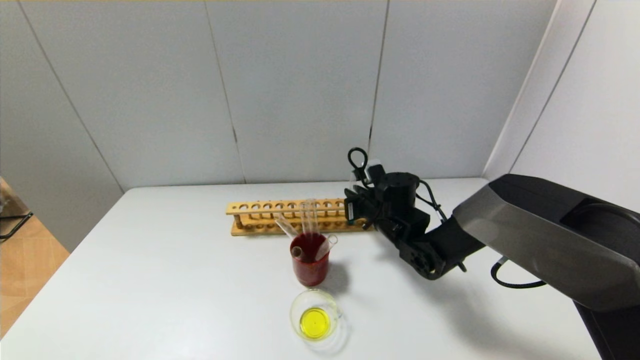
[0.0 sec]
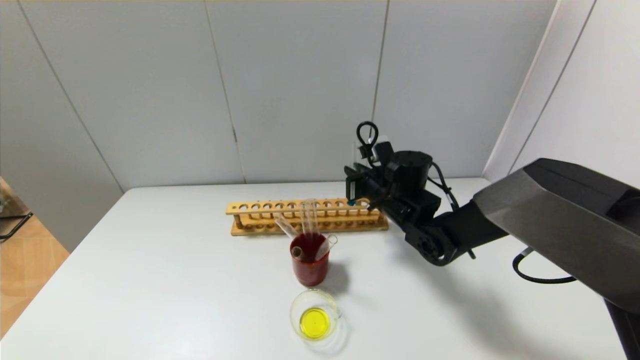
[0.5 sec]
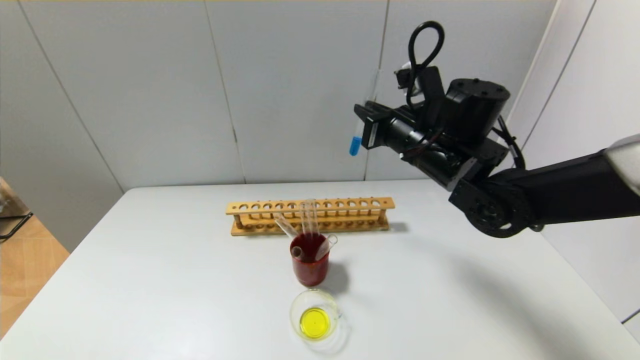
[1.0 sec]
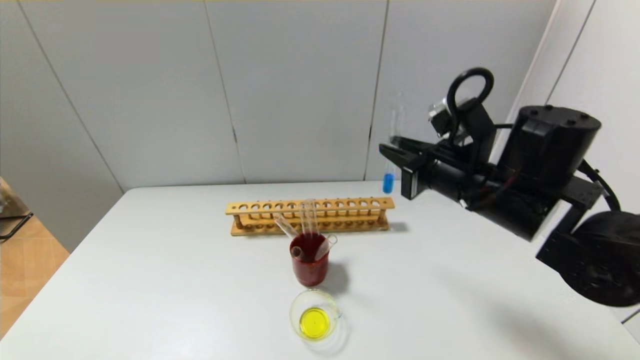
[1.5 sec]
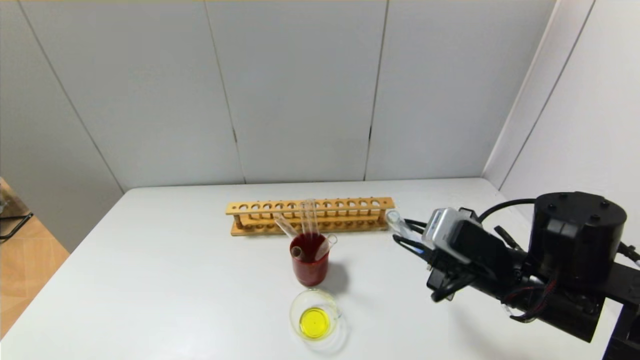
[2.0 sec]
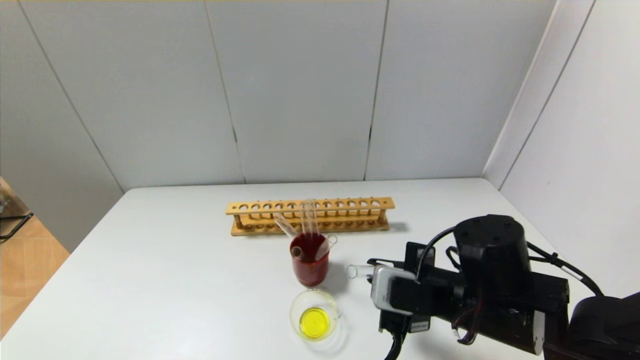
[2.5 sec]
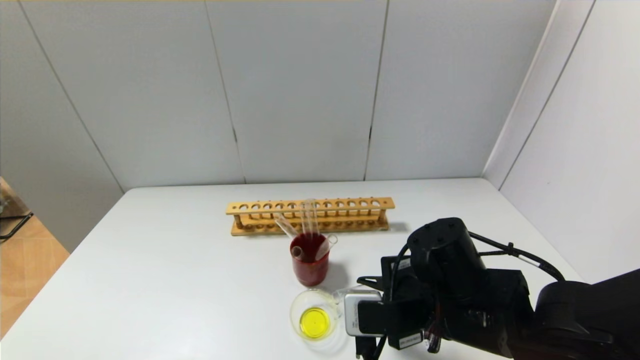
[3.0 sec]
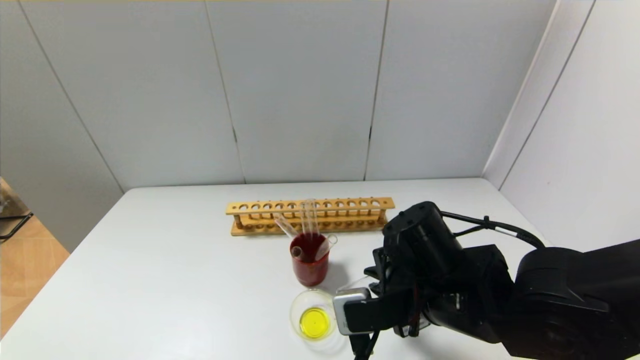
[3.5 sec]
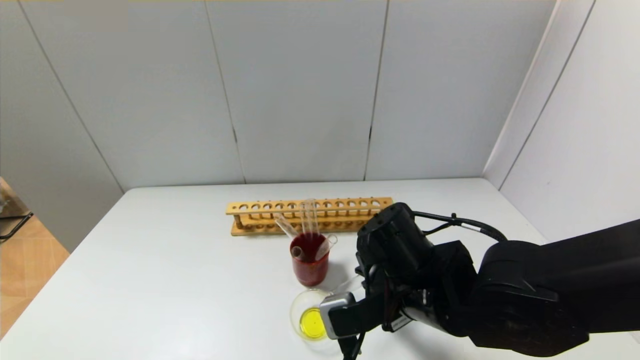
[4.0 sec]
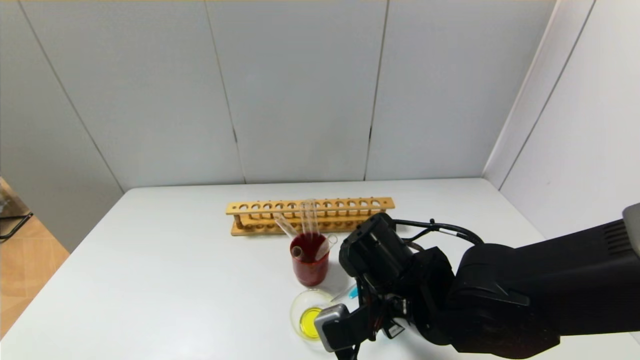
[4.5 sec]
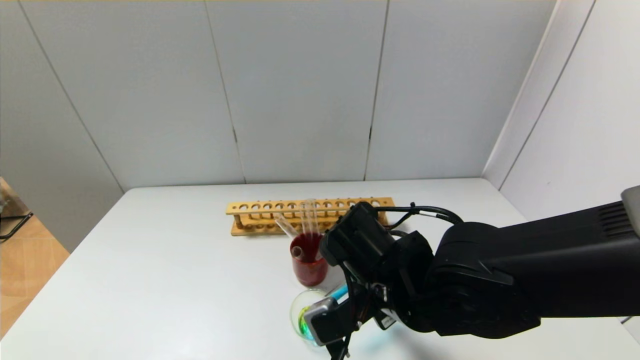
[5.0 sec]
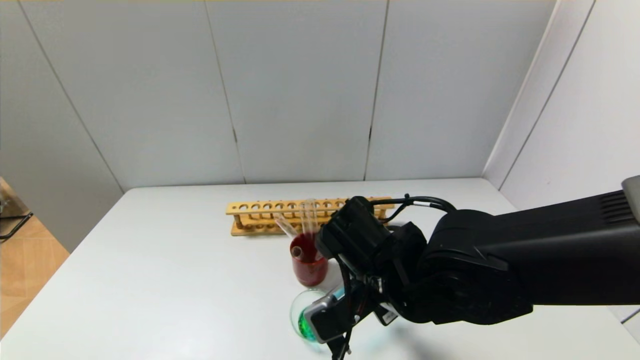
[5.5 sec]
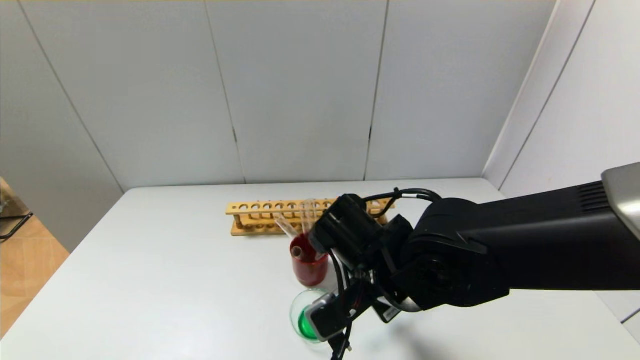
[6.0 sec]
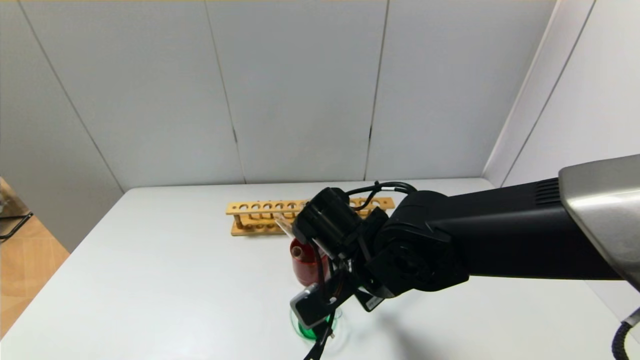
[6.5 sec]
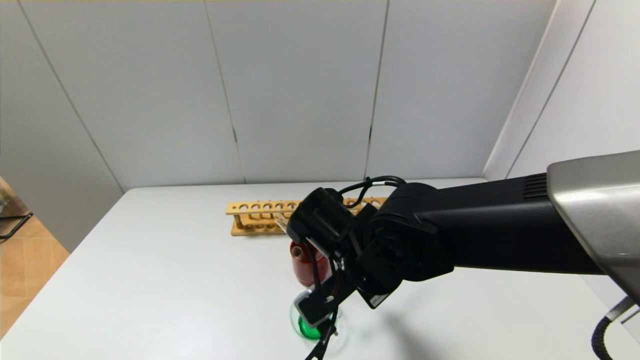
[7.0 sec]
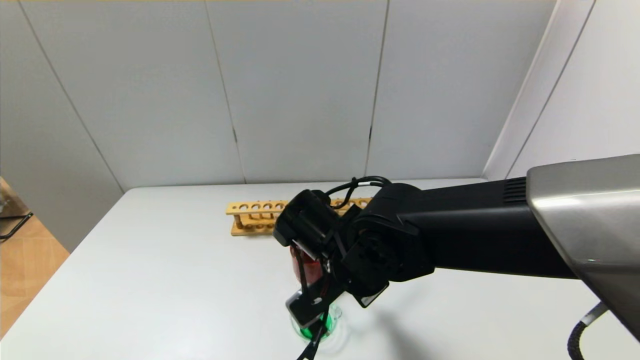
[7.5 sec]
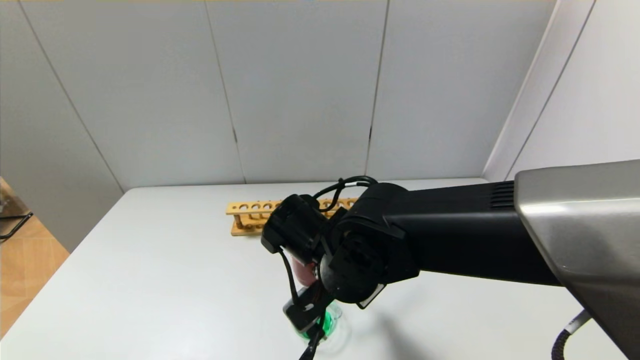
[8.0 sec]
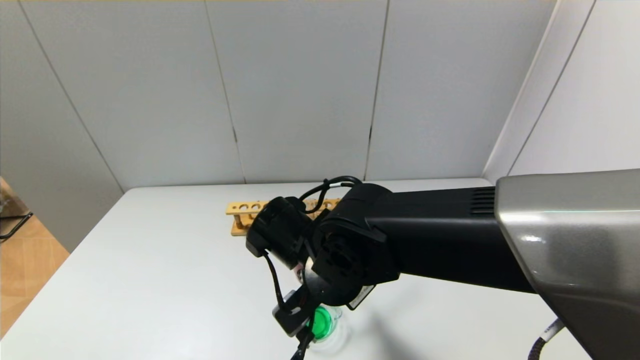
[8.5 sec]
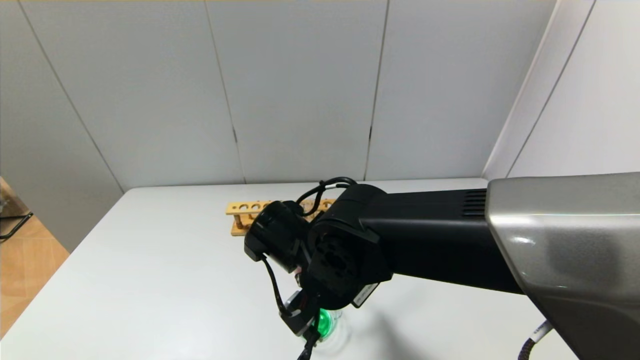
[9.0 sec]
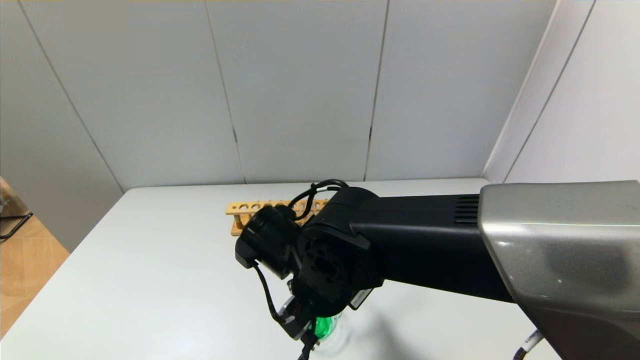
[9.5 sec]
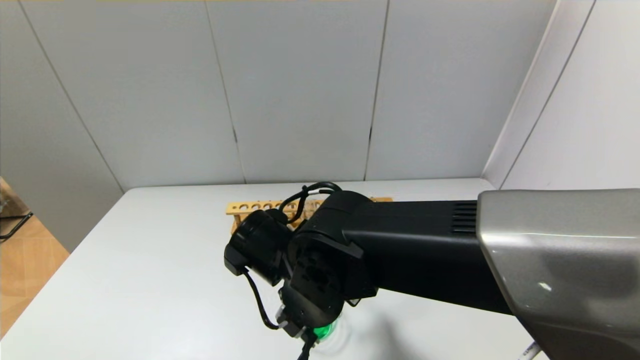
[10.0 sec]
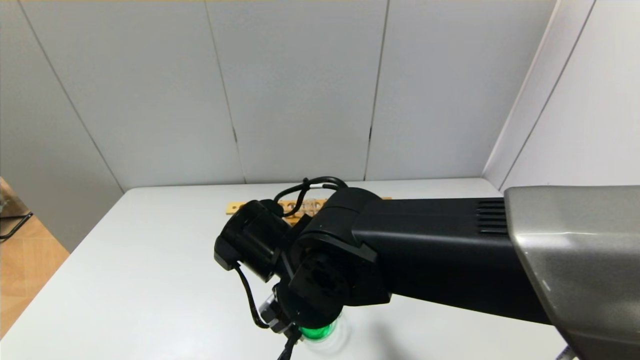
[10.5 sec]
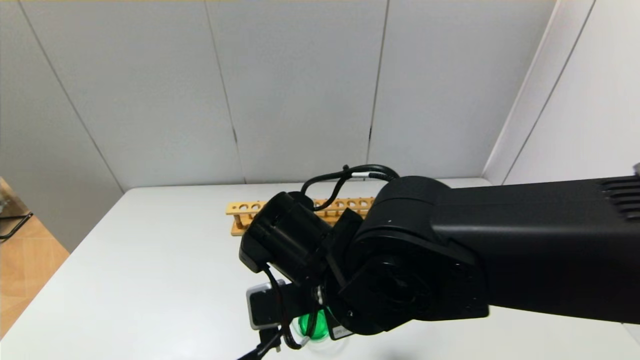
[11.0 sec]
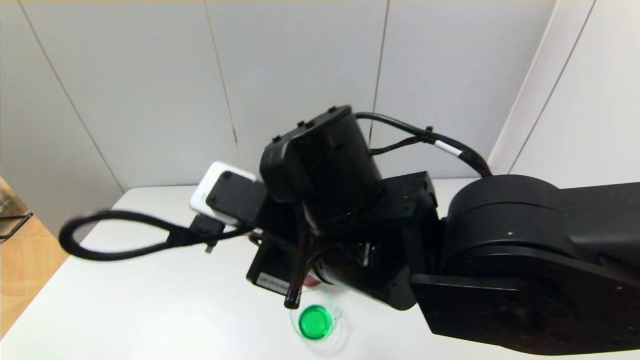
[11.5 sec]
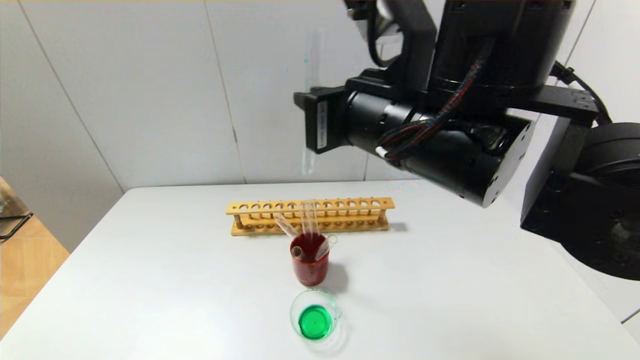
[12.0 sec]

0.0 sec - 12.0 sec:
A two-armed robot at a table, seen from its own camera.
Step, 0.0 sec - 11.0 sec: Pour the blue reagent into the graduated cylinder with the right gripper.
0.0 sec - 2.0 sec: The right gripper is displaced backward, upward and to the right by roughly 20 cm.
2.0 sec - 4.0 sec: The right gripper shifts approximately 10 cm to the left.
4.0 sec - 6.0 sec: The grippers stay close to where they were, moving slightly.
6.0 sec - 8.0 sec: The grippers stay close to where they were, moving slightly.
8.0 sec - 10.0 sec: The grippers make only small movements.
10.0 sec - 12.0 sec: The right gripper moves upward and to the right, roughly 20 cm.

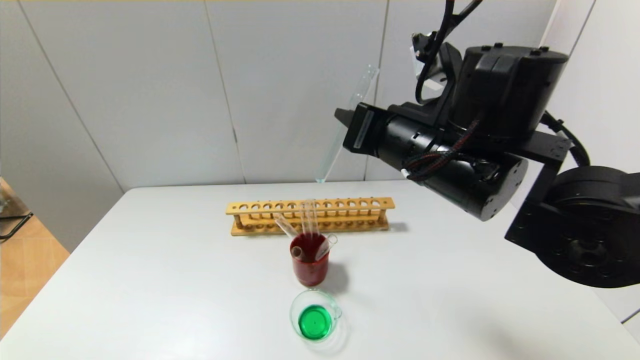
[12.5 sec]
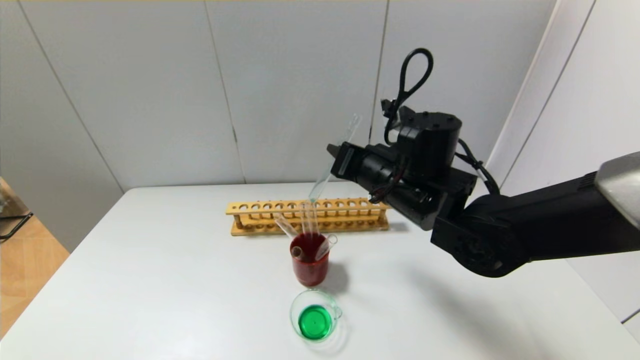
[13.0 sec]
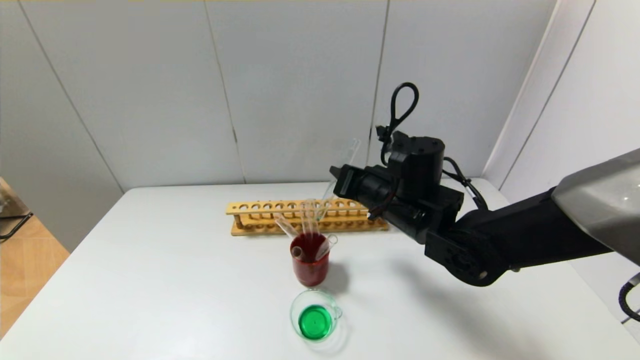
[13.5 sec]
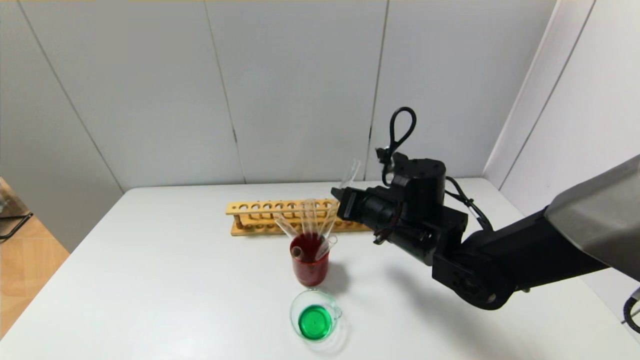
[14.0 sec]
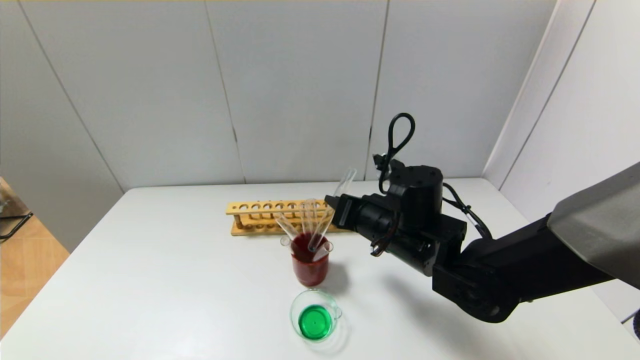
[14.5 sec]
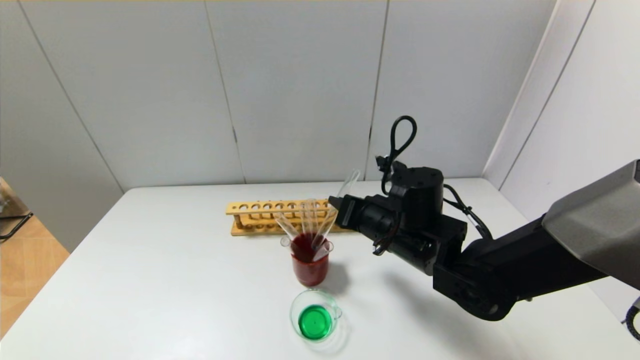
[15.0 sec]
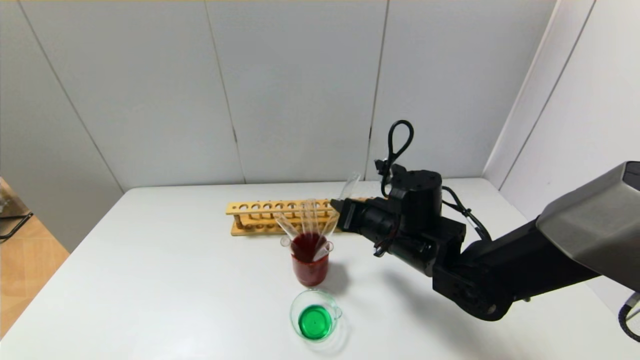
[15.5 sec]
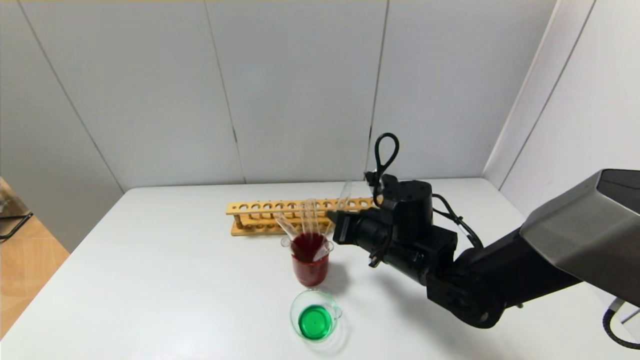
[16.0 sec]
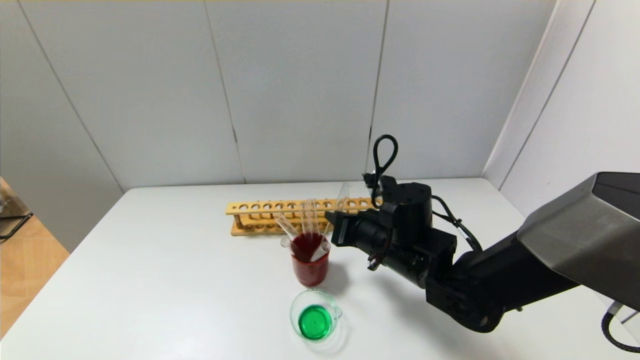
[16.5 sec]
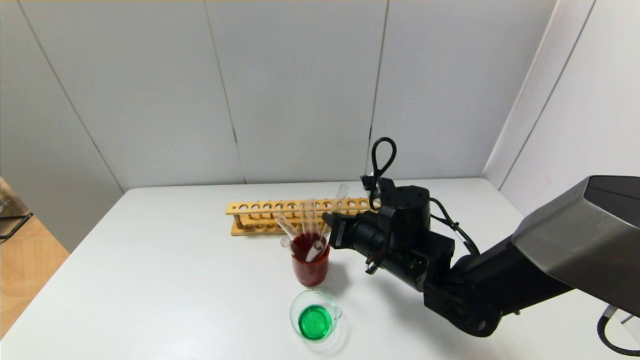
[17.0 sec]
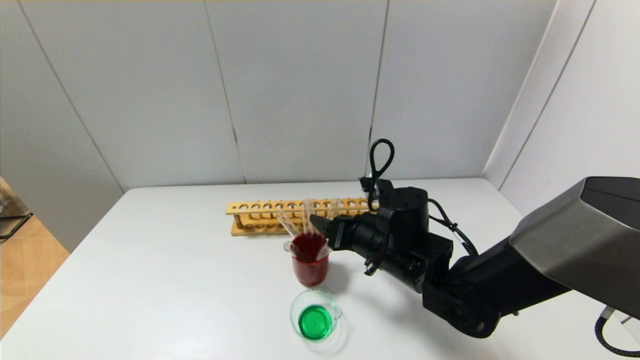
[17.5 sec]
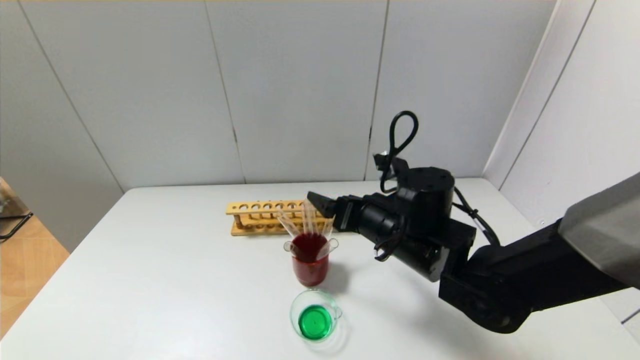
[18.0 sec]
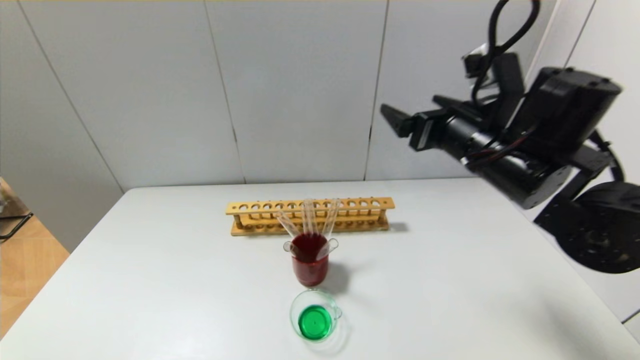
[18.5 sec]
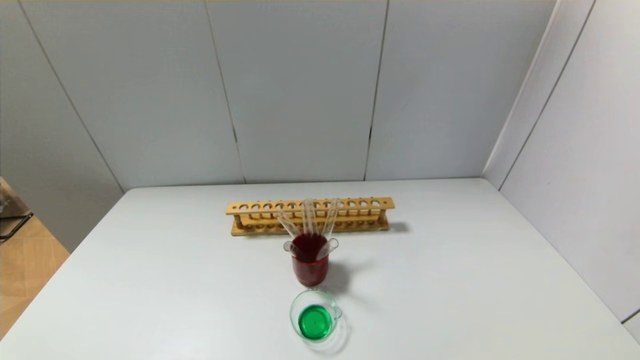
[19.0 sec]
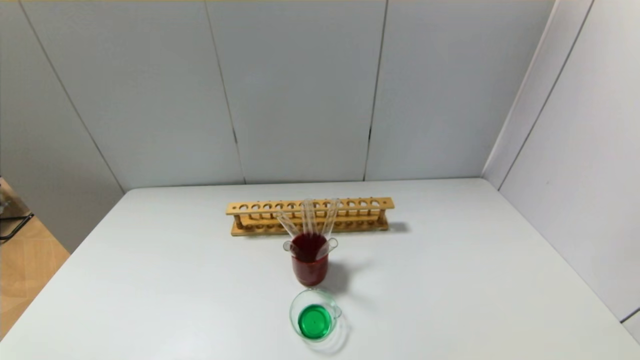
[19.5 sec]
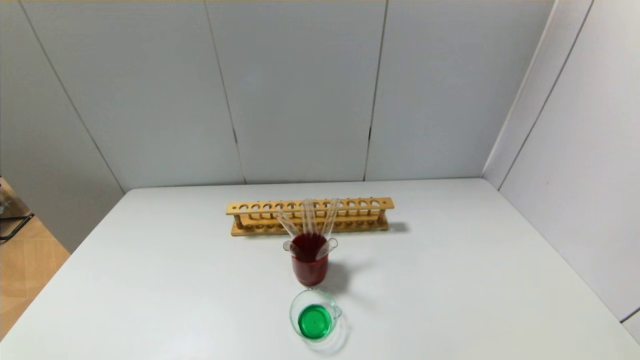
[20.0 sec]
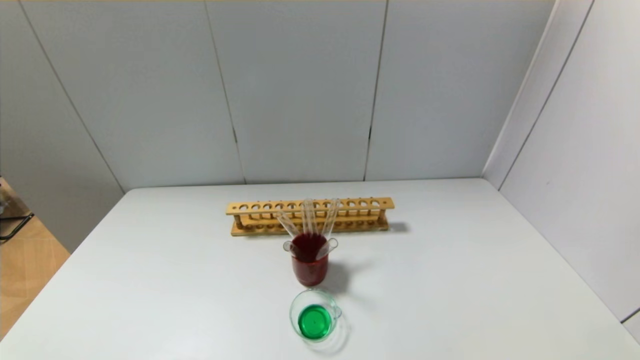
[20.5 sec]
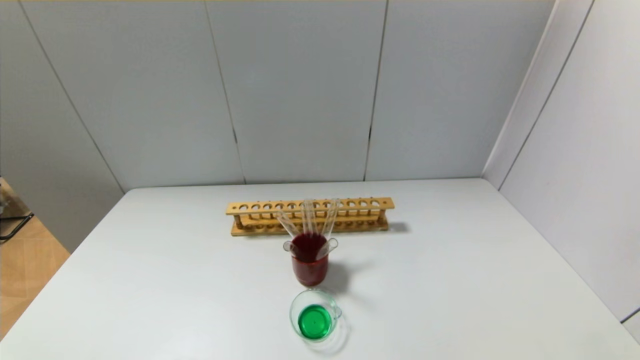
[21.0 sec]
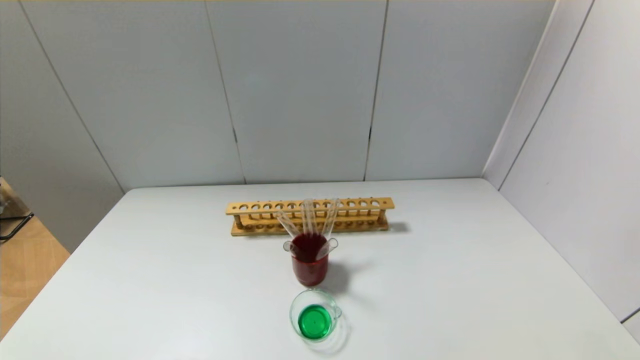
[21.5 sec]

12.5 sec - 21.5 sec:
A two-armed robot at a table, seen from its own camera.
Step, 12.5 sec - 17.5 sec: Place the test tube into the brown cup with the right gripper.
12.5 sec - 14.5 sec: The right gripper goes roughly 15 cm downward.
14.5 sec - 17.0 sec: There are only small adjustments of the grippers.
17.0 sec - 19.5 sec: The right gripper moves backward, to the right and upward, about 50 cm, and opens.
